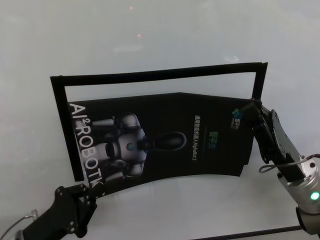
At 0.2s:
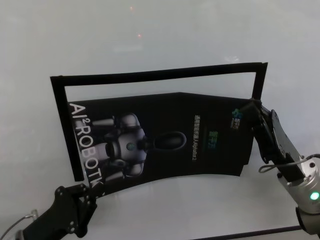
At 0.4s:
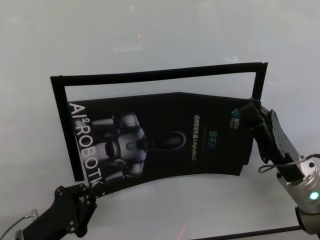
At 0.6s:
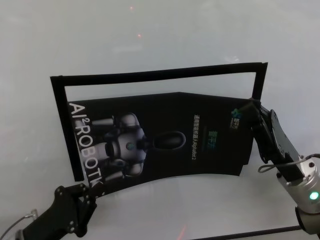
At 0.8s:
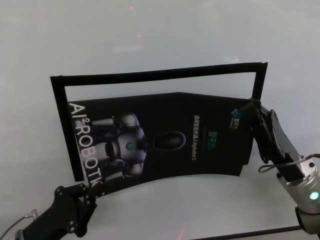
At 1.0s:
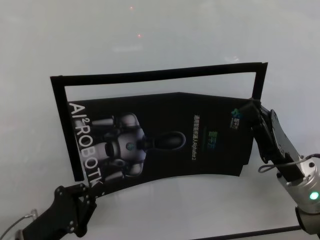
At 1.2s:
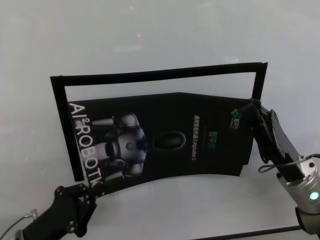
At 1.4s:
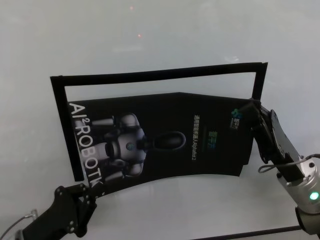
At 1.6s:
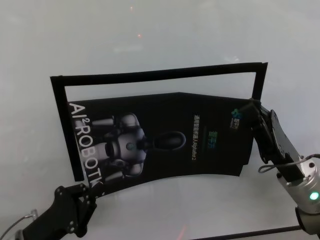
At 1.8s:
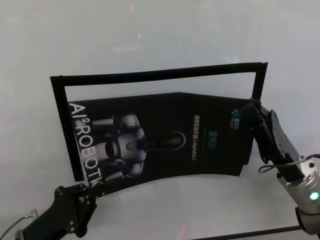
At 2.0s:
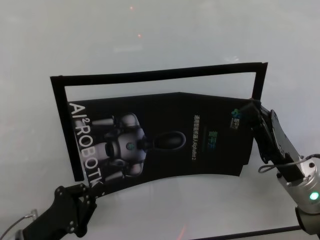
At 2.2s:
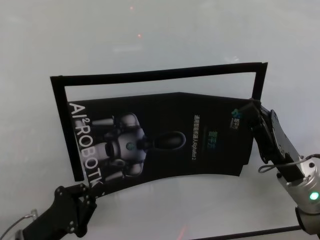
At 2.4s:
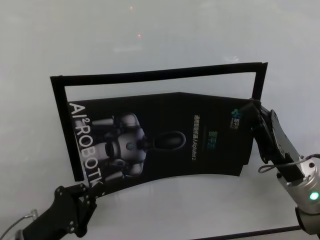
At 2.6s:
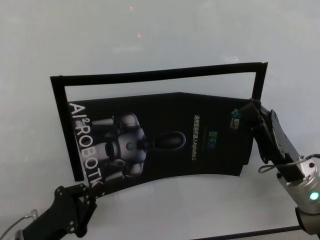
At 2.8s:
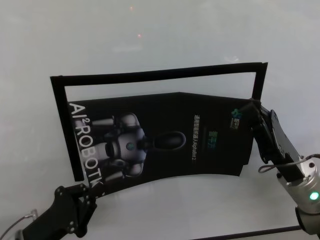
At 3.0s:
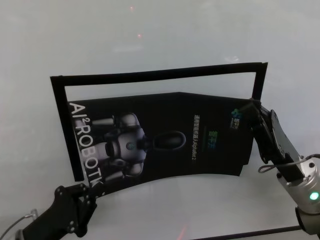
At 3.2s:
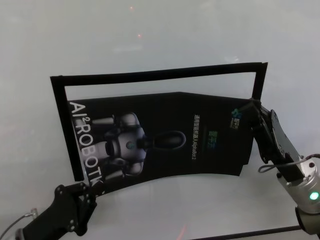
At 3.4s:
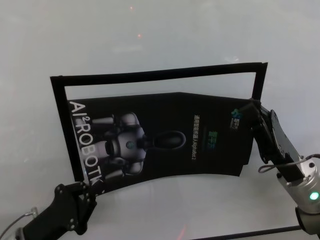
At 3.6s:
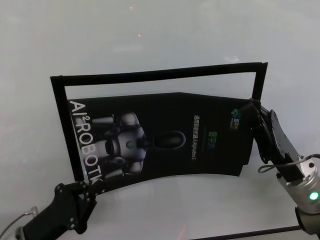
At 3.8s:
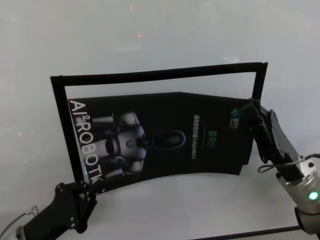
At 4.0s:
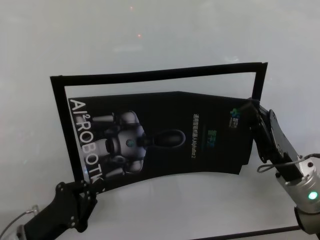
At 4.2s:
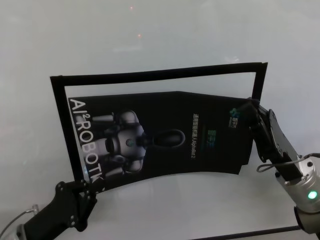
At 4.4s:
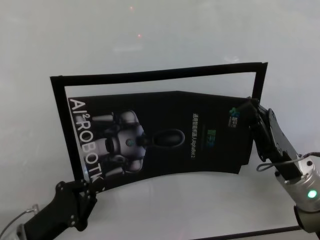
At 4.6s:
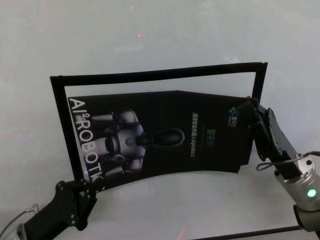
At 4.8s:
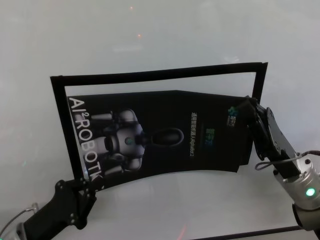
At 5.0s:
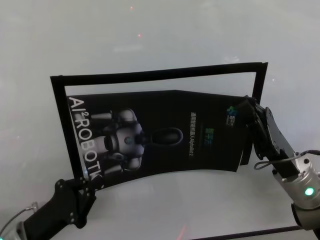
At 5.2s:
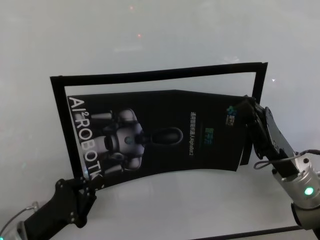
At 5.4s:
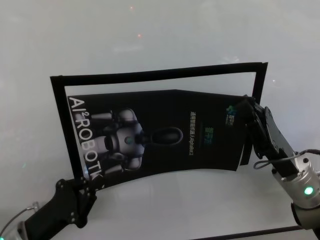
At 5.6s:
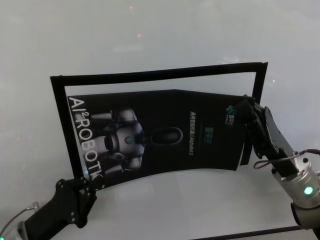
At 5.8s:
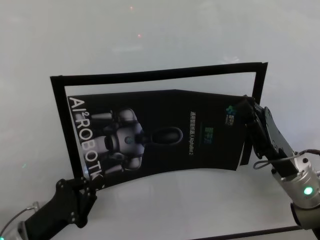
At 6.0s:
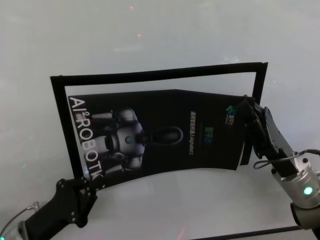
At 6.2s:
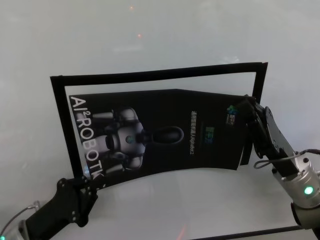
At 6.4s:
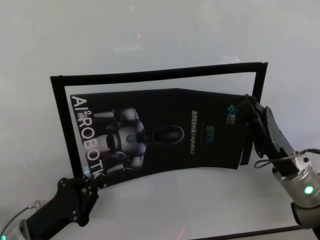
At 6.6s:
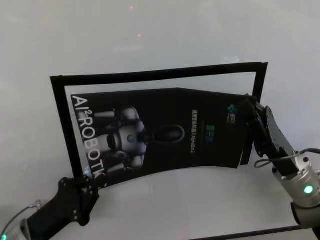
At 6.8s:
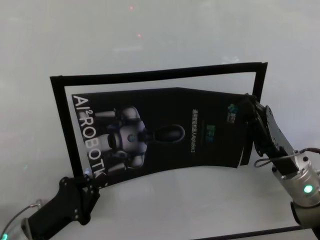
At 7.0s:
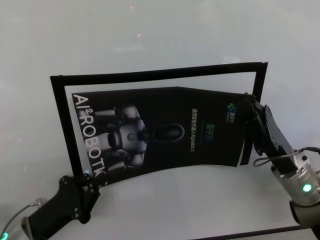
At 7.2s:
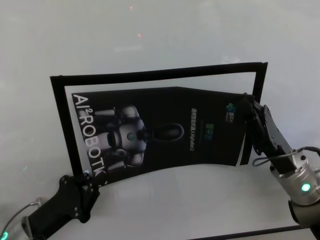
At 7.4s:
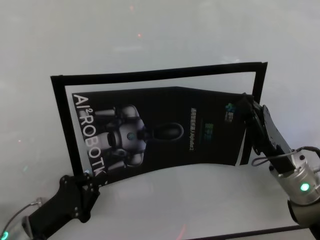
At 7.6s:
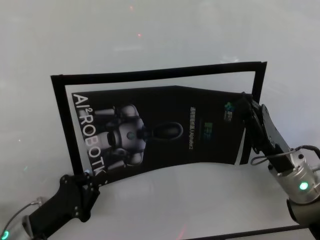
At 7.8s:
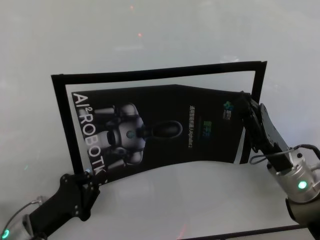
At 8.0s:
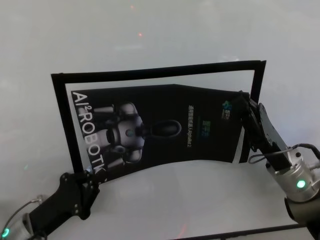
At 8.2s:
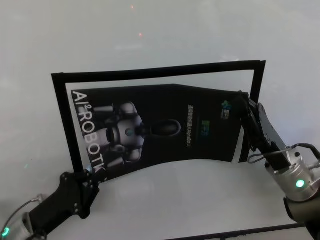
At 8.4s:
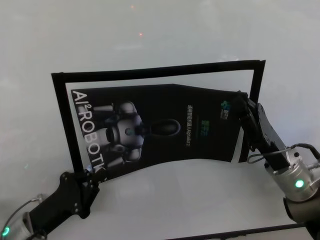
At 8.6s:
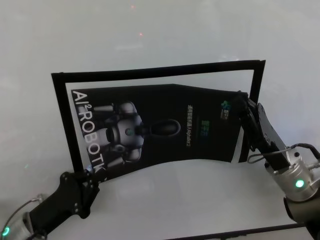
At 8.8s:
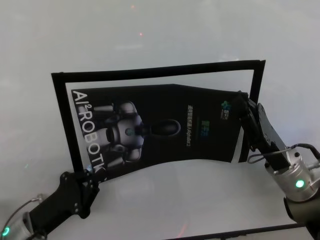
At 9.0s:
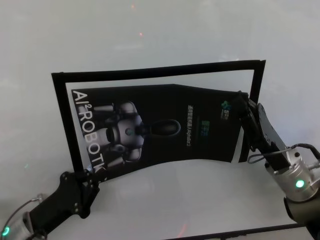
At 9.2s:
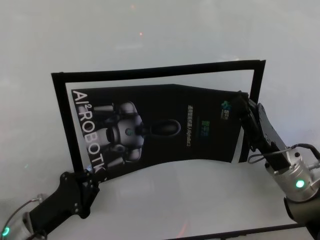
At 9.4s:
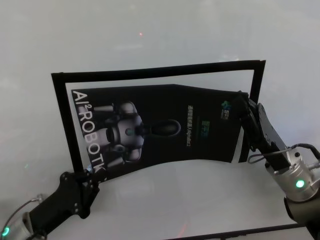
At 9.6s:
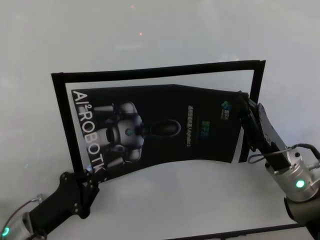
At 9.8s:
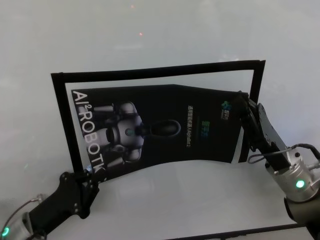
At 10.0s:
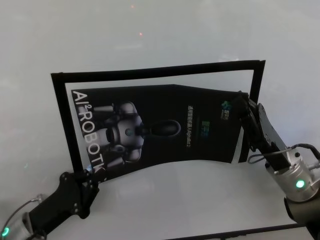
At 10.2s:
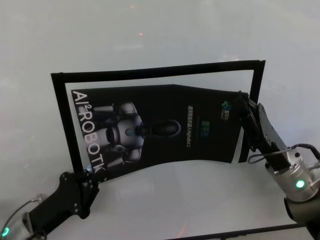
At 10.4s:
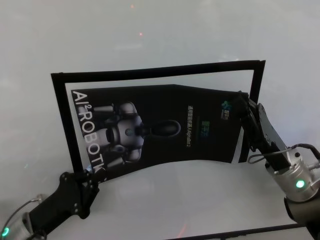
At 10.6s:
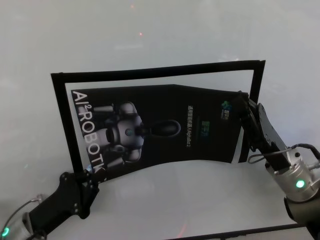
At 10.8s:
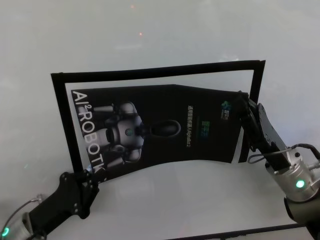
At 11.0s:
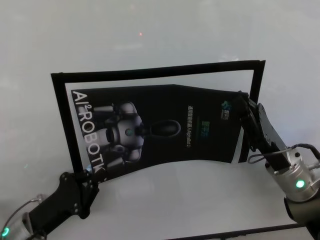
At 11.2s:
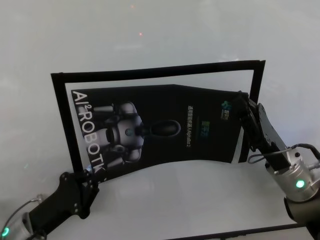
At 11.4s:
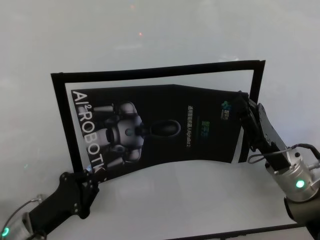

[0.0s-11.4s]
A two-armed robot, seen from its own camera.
Task of the whole recording: stick the poster on the table by hand.
Step, 0.0s to 9.0s: Stick the advertisement in the top-right corner area with both grippers.
